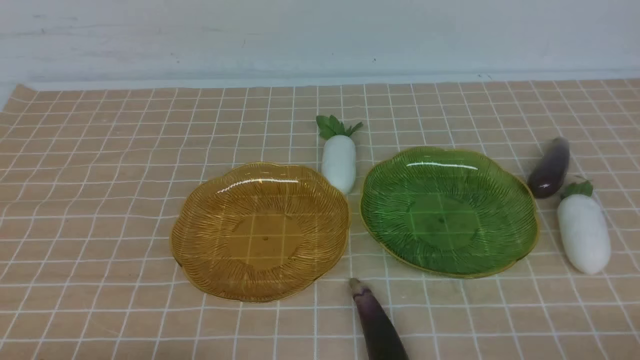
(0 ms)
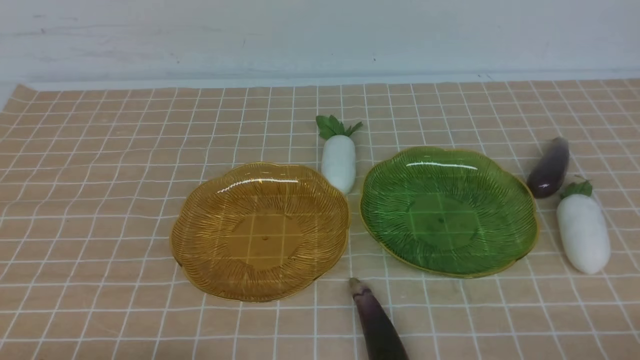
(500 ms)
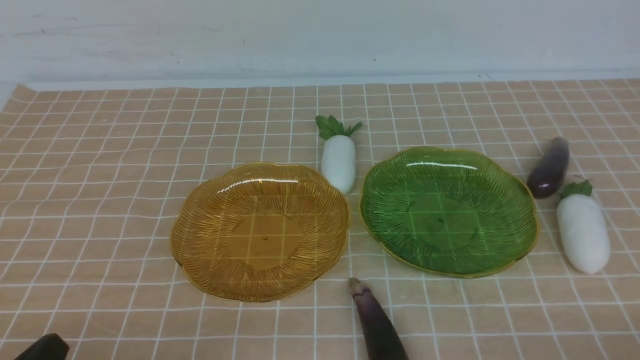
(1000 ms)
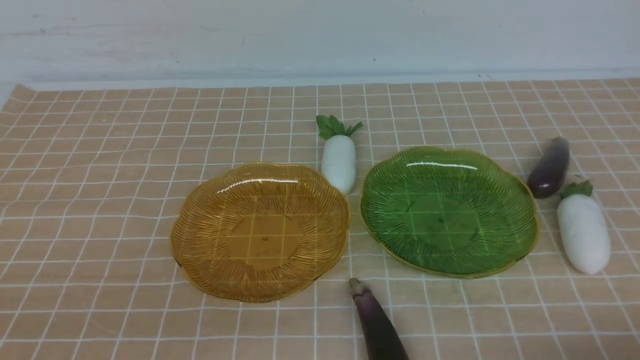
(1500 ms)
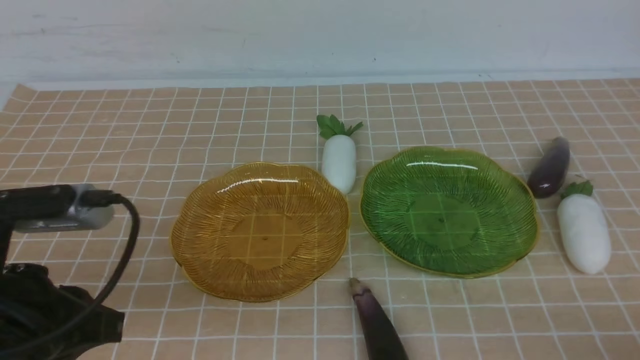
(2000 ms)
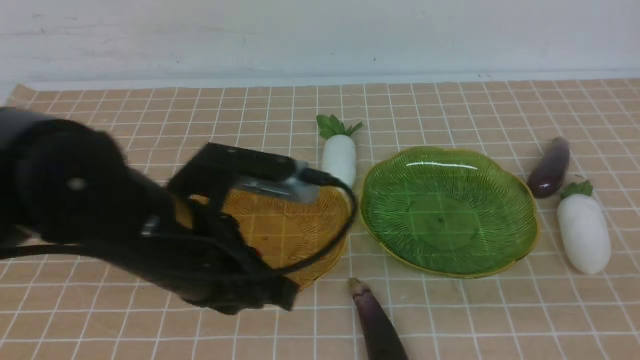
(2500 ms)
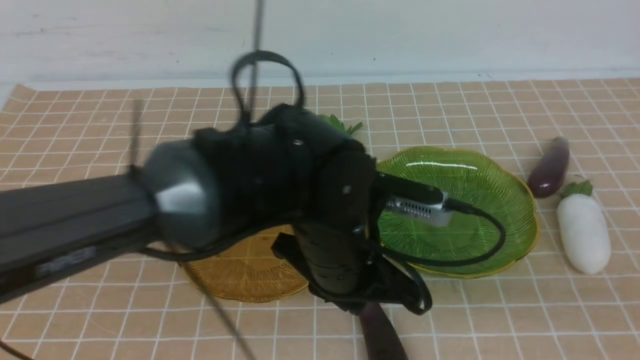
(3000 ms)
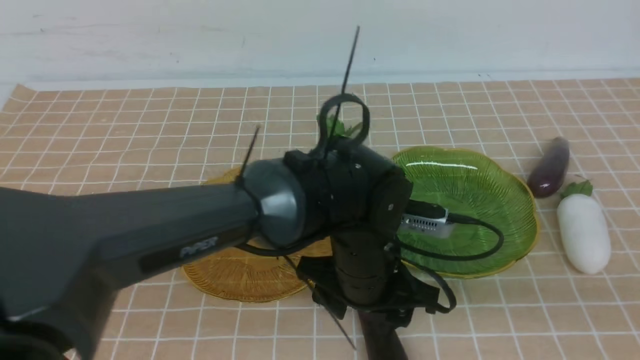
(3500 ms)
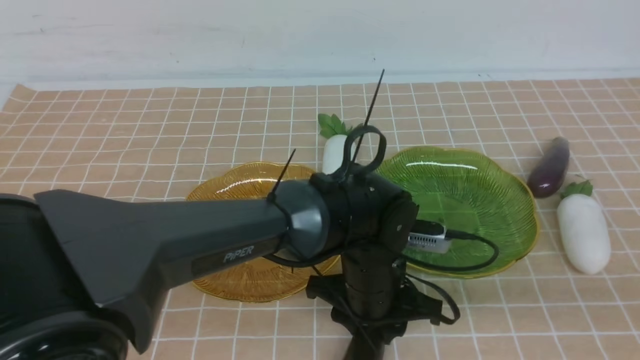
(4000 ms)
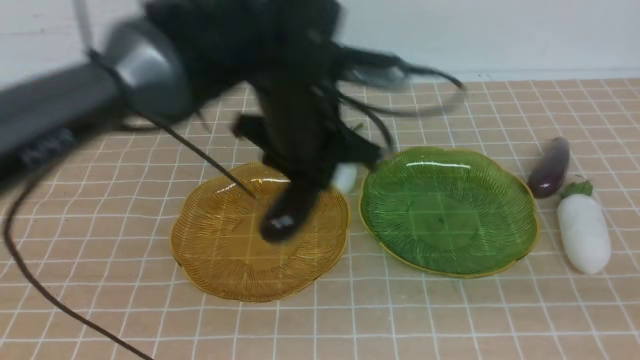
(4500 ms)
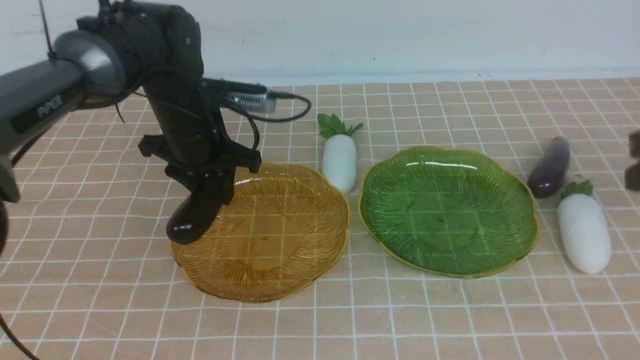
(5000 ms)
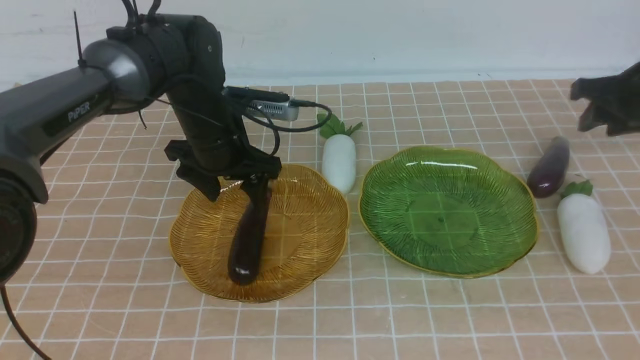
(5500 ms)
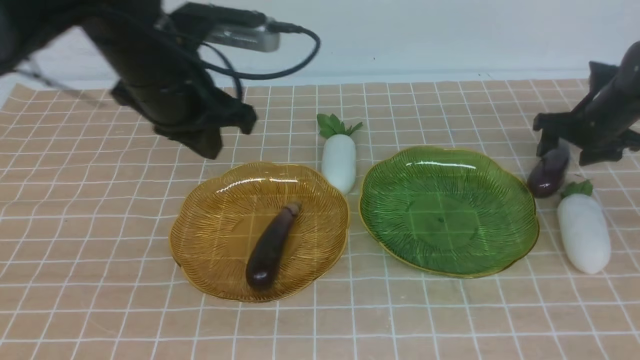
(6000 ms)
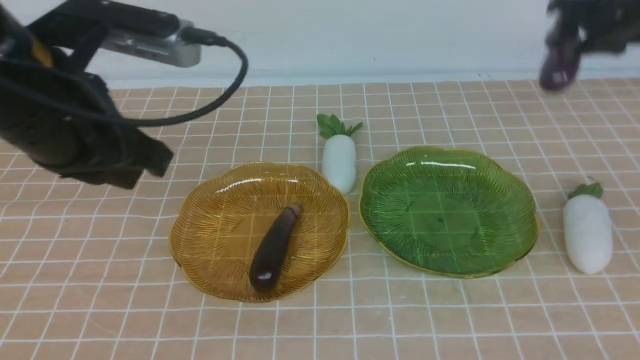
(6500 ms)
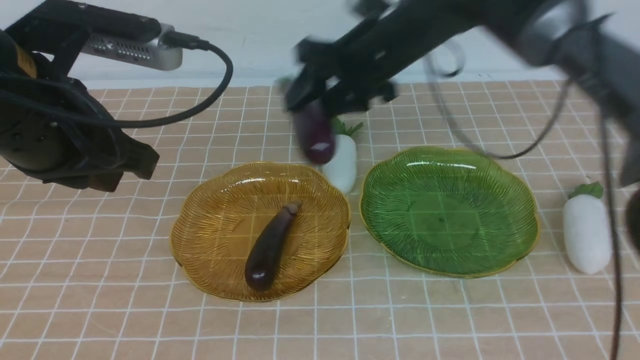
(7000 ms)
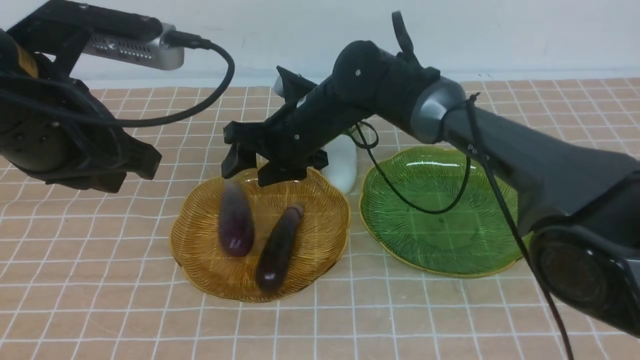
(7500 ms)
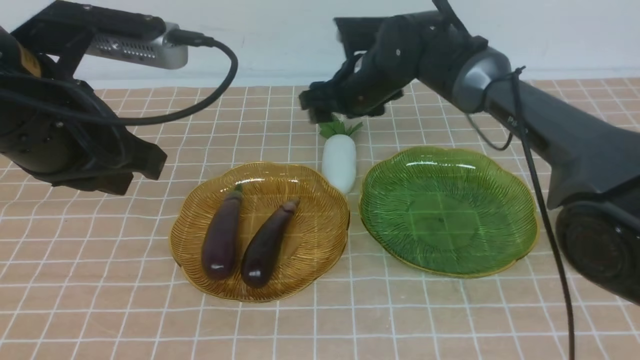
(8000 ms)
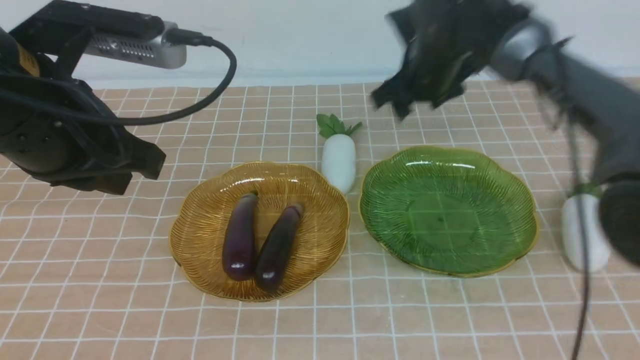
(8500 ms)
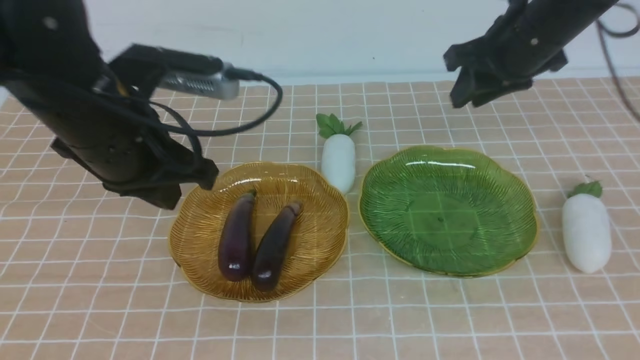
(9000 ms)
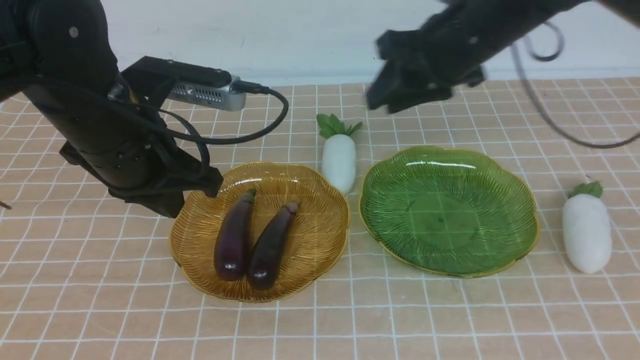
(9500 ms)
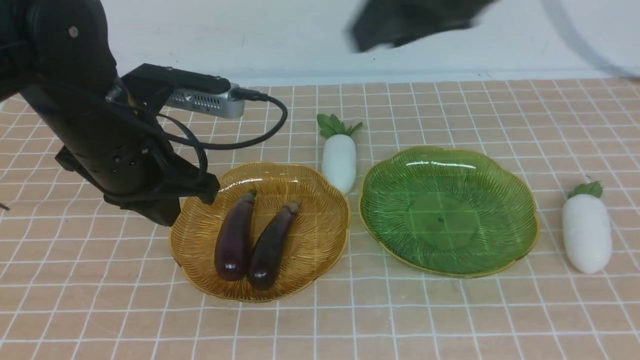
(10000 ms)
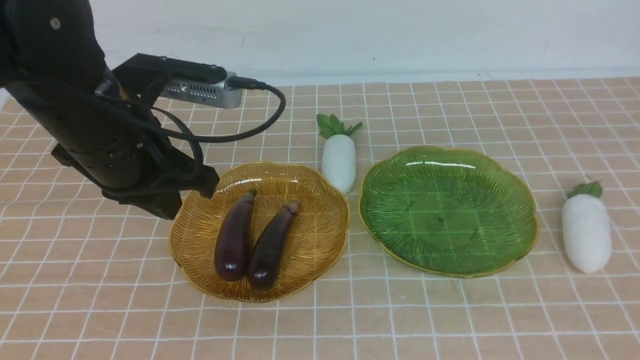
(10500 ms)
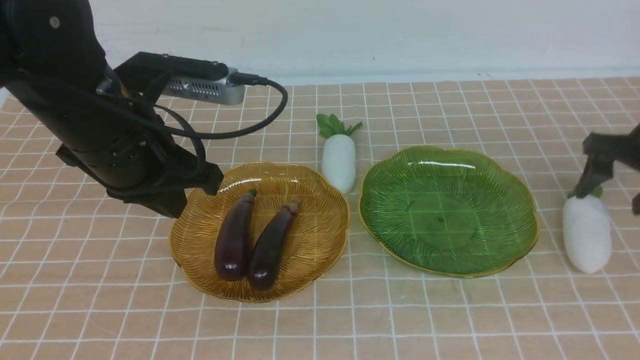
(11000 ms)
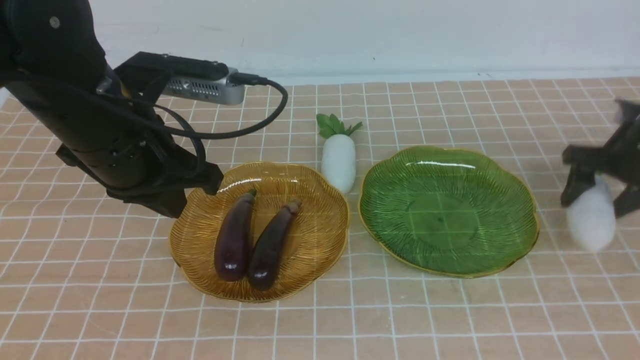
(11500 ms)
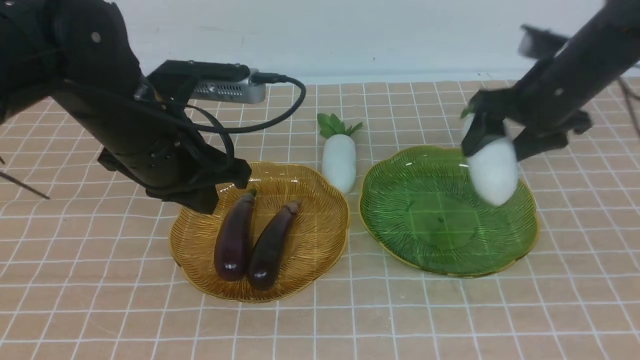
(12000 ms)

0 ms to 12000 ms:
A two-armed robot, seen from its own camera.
Step, 0 ms to 5500 ms: use the left arm to grab an eggplant and put it into the left plate.
Step, 6000 ms to 7500 ms: use the right arm to grab an eggplant and put it into the left plate.
0 ms to 2000 ms: The left gripper goes approximately 20 cm upward, forward and to the right.
2000 ms to 4000 ms: The left gripper heads to the right, downward and forward, covering approximately 30 cm, and opens its fingers. The right gripper heads upward, covering about 5 cm.
4000 ms to 6000 ms: The left gripper travels to the left and upward by some 25 cm, and closes. Meanwhile the right gripper heads forward, covering approximately 40 cm, and opens.
6000 ms to 8000 ms: The right gripper goes roughly 30 cm to the left. Meanwhile the left gripper is displaced backward by some 10 cm.
8000 ms to 10000 ms: The right gripper goes left and right, approximately 20 cm each way, reversing 2 times, and closes; the left gripper moves some 5 cm.
10000 ms to 12000 ms: The left gripper goes about 5 cm forward; the right gripper swings up and down, about 20 cm each way, with 2 reversals, and opens its fingers.

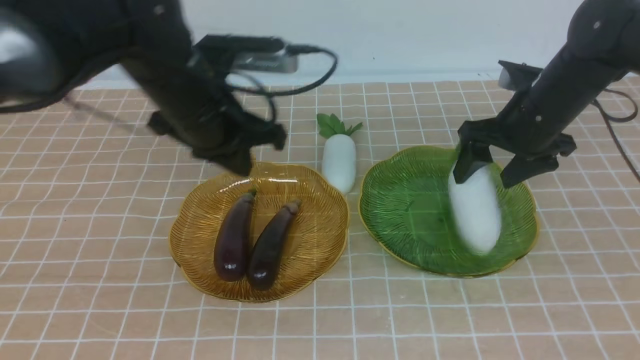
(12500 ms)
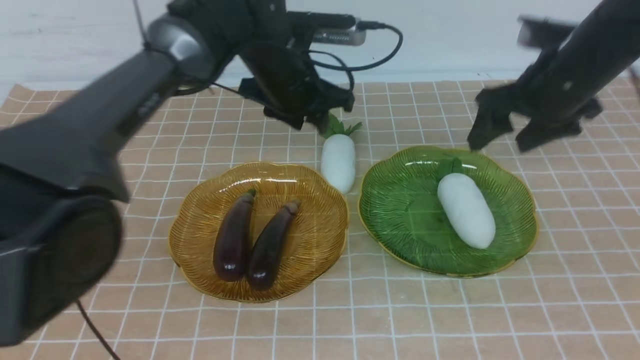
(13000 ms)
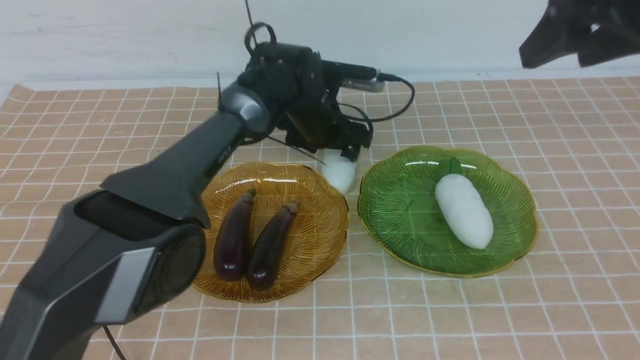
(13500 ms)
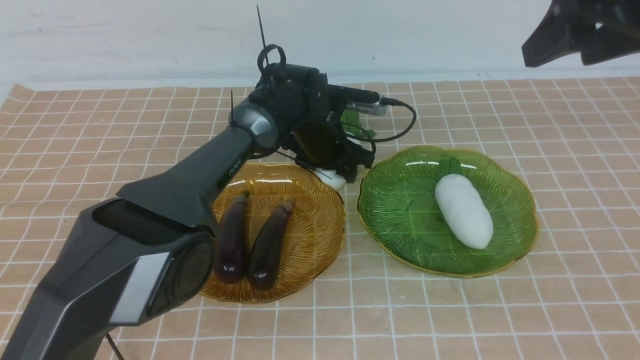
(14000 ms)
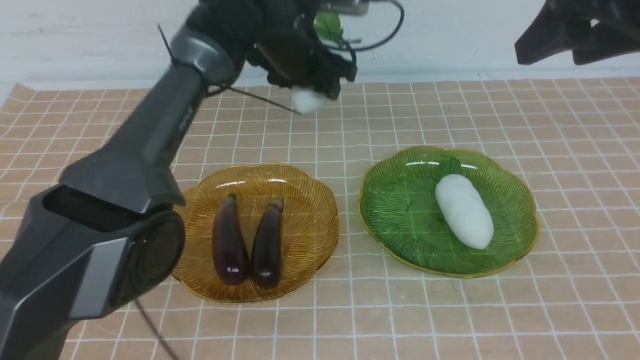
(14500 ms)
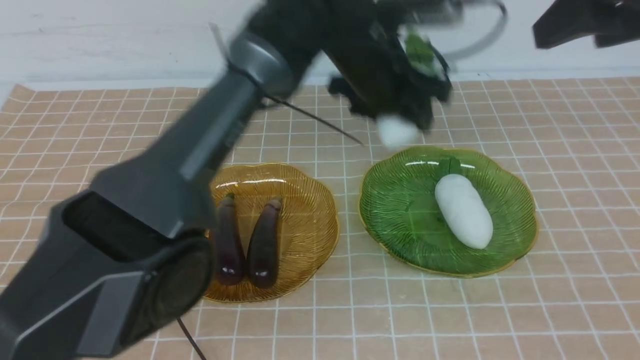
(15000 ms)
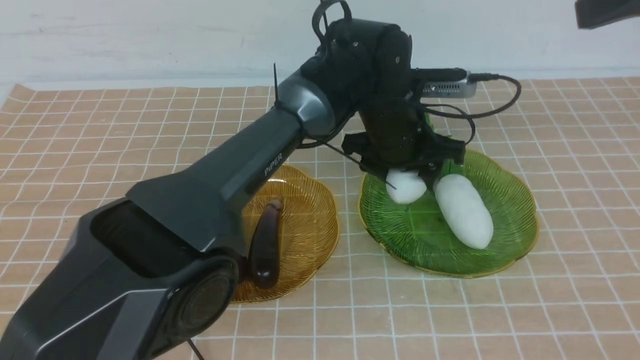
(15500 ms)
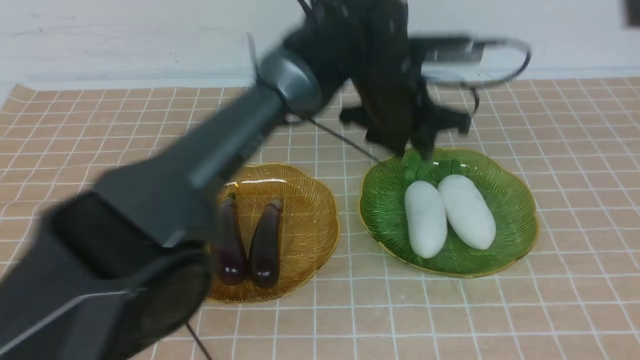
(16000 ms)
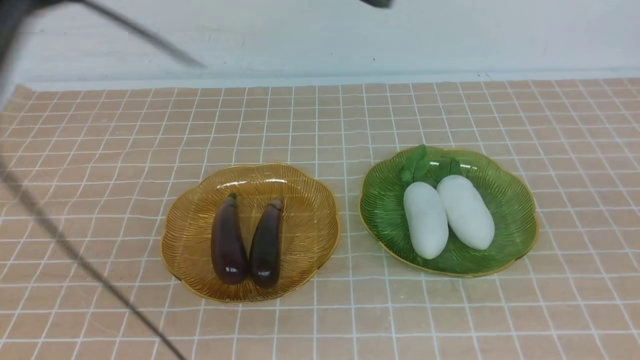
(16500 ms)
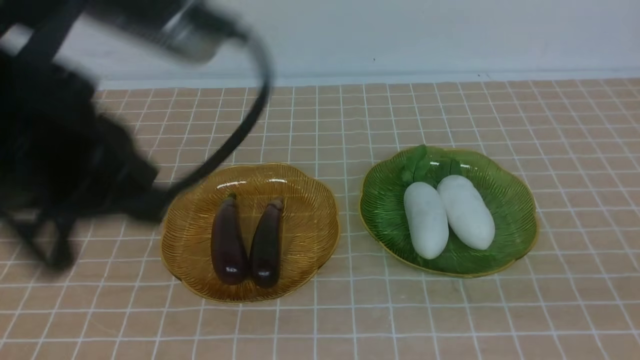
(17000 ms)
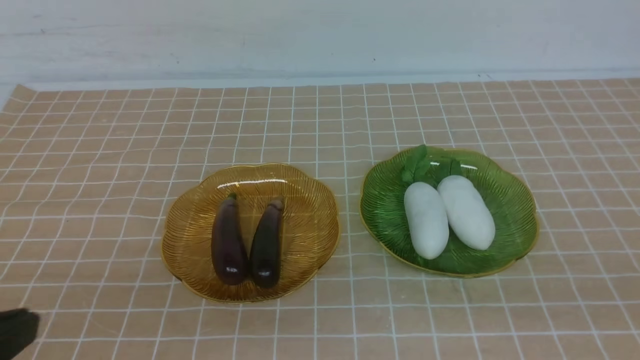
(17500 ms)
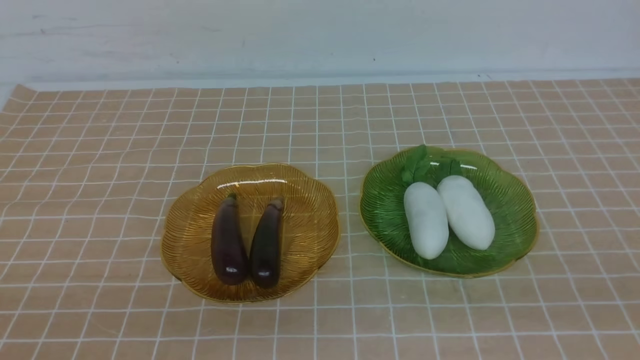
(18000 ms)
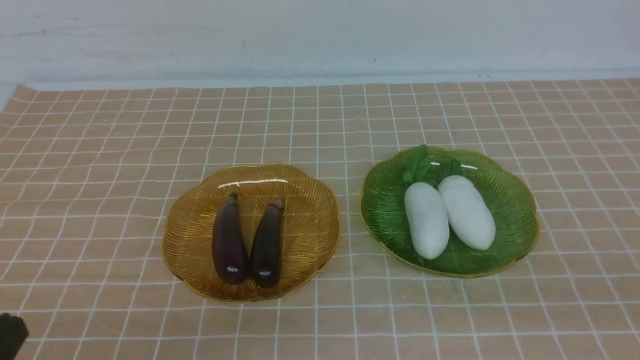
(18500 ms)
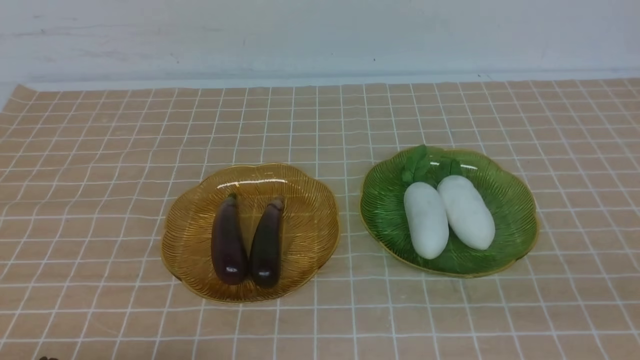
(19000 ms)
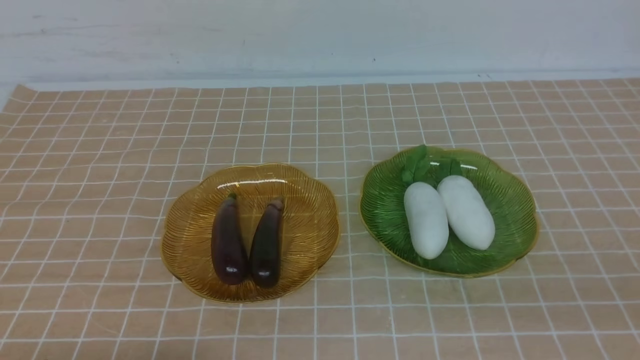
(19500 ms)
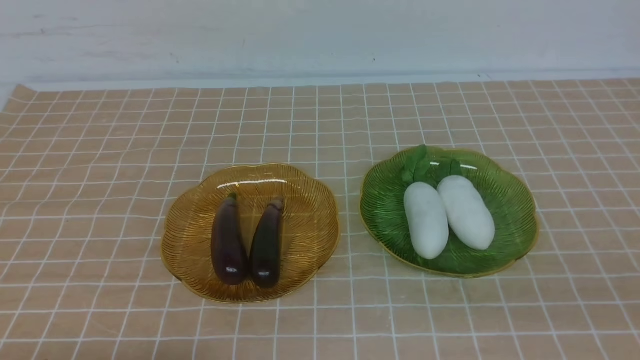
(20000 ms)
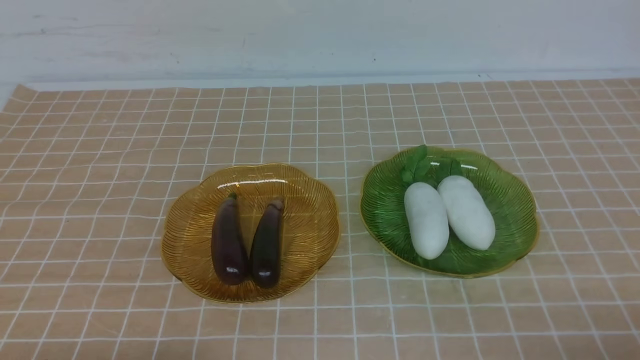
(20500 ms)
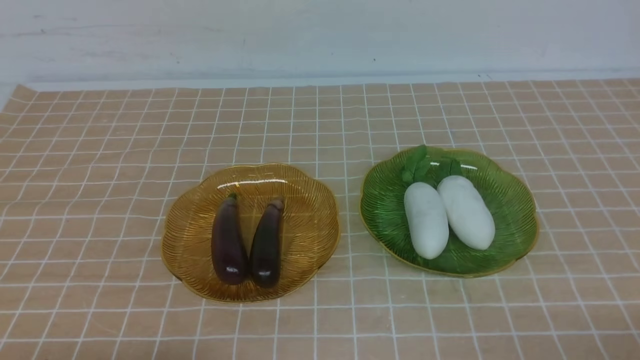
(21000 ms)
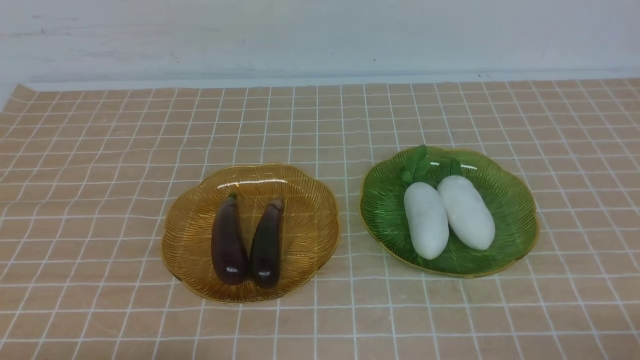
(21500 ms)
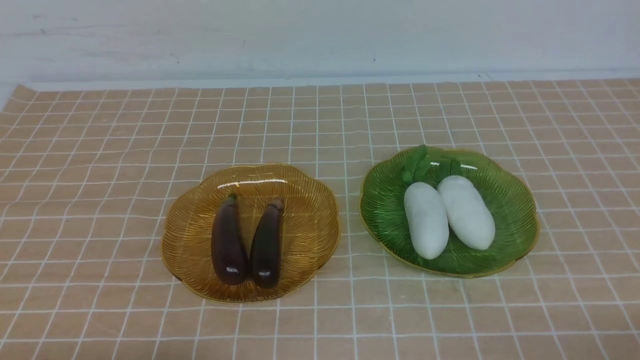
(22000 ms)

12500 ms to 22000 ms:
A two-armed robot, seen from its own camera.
Step, 13000 ms to 16000 ms: use the left arm to grab a radish and put it into the right plate.
12500 ms to 14500 ms: The left gripper goes up and down, roughly 10 cm each way, reversing 2 times. The right gripper moves upward and backward, some 20 cm.
14500 ms to 16500 ms: The right gripper shifts roughly 25 cm backward, and closes up. Meanwhile the left gripper is displaced backward, to the left and upward by approximately 40 cm, and closes its fingers.
16500 ms to 18000 ms: The left gripper is displaced downward, backward and to the left by approximately 15 cm.
